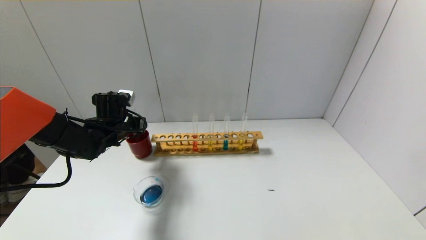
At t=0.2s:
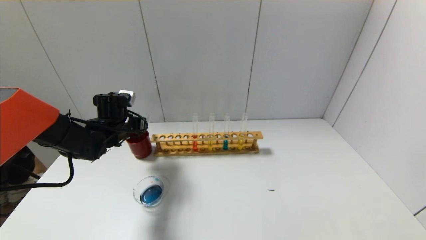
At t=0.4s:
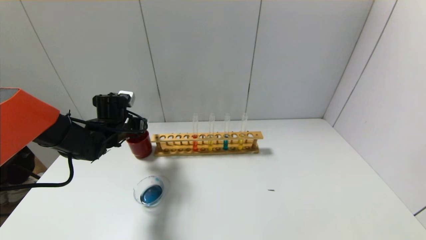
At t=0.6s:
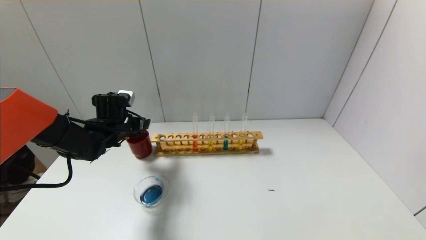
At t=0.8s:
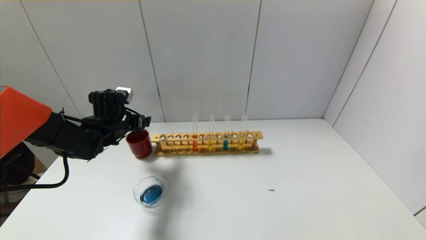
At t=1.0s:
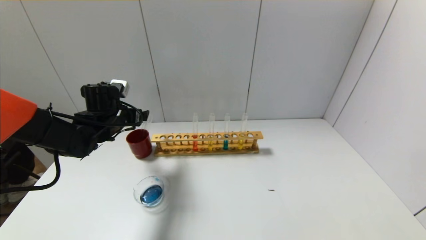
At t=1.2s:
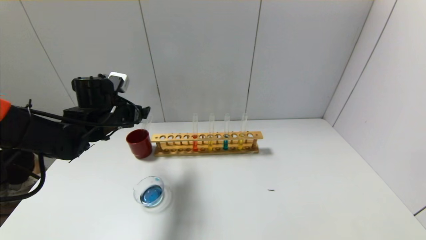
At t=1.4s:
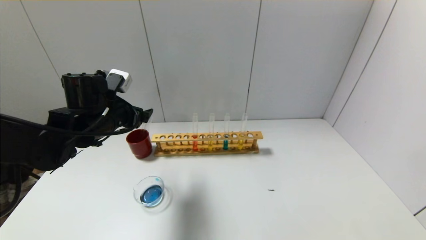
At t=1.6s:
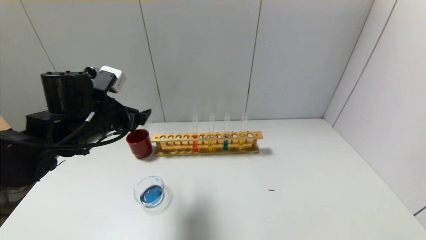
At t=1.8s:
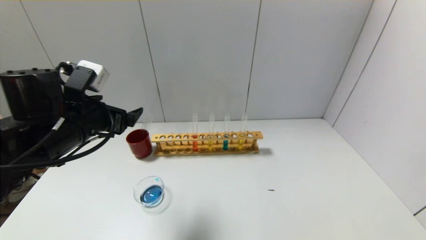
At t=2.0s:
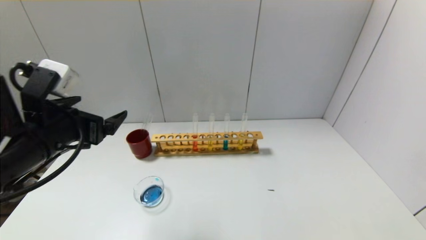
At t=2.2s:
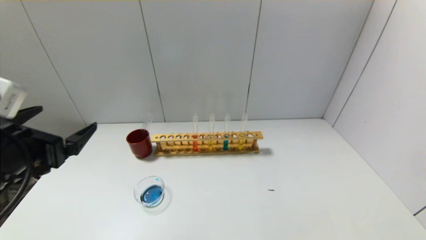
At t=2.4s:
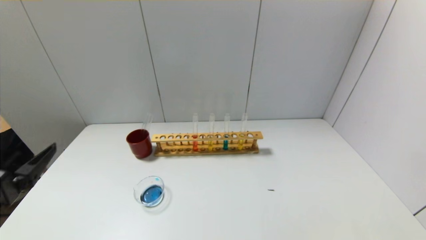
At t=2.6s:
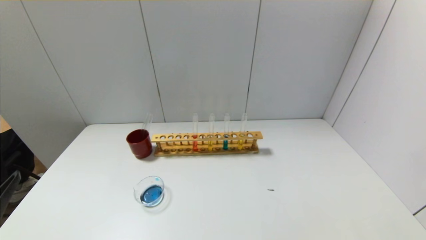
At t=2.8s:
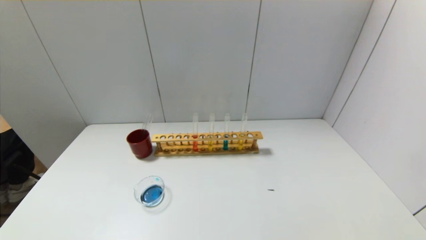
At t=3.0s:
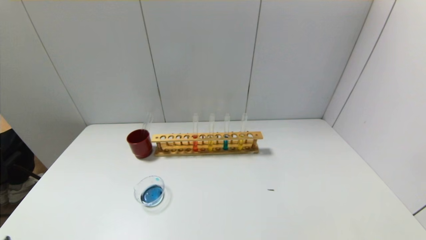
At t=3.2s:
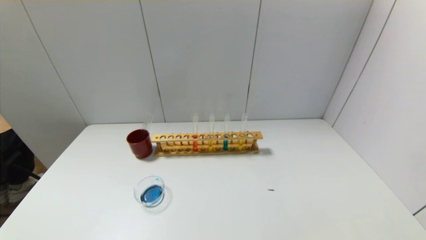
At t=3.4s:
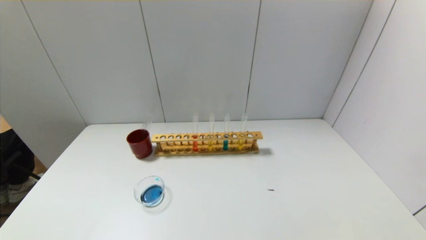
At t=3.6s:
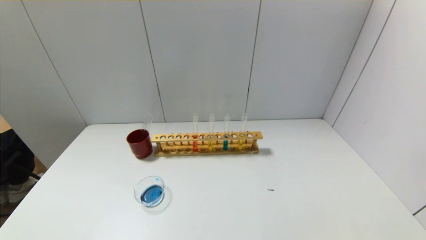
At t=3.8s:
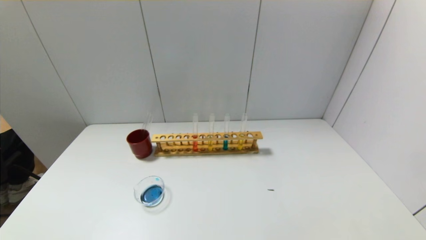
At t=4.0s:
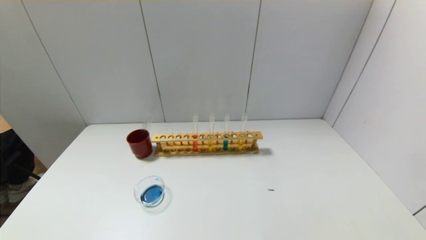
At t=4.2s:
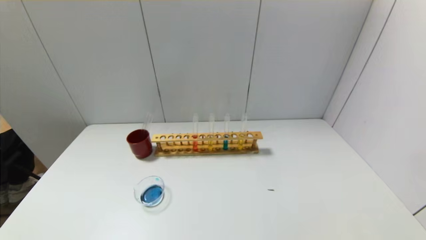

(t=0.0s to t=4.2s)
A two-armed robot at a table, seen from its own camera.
t=0.0s - t=1.4s: The left gripper is displaced backward and upward by some 10 cm, and opens its fingers.
t=1.4s - t=2.8s: The left gripper shifts roughly 30 cm backward.
